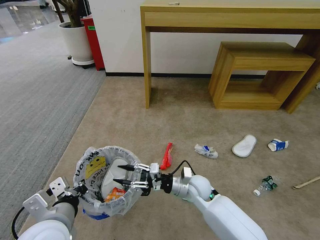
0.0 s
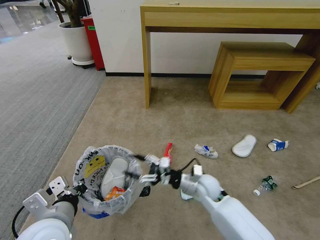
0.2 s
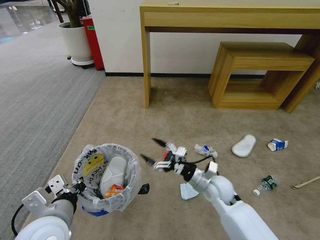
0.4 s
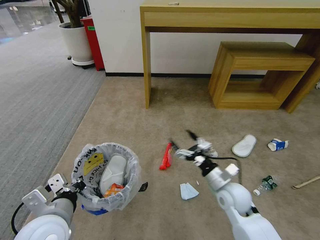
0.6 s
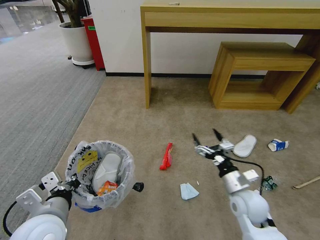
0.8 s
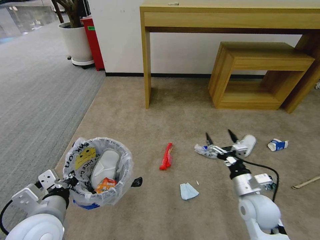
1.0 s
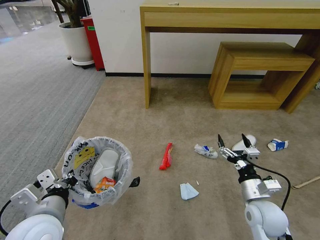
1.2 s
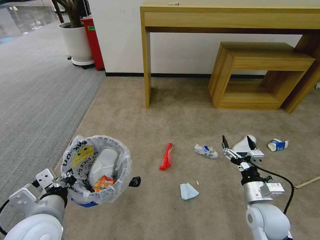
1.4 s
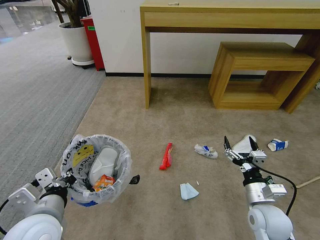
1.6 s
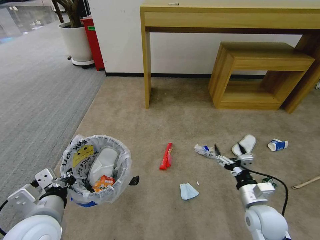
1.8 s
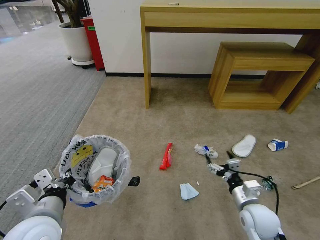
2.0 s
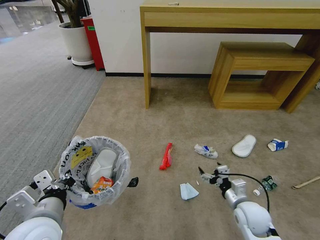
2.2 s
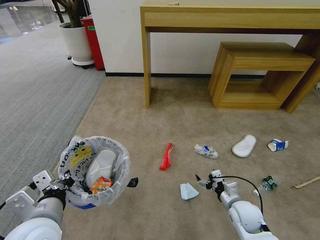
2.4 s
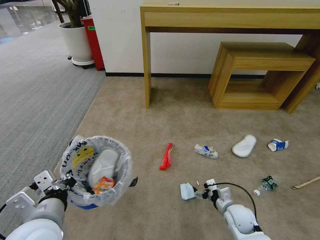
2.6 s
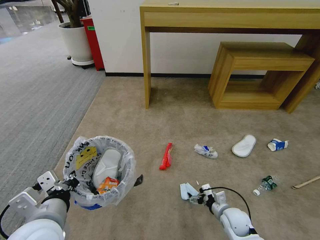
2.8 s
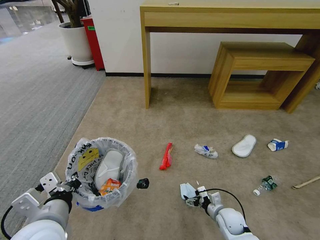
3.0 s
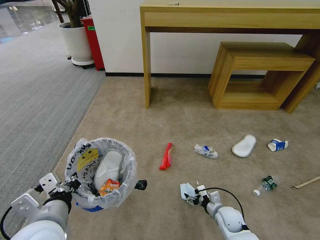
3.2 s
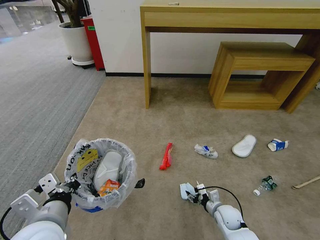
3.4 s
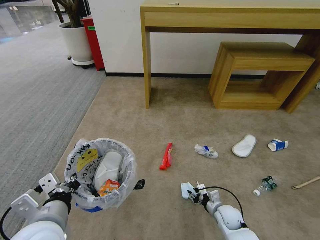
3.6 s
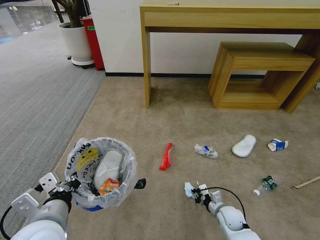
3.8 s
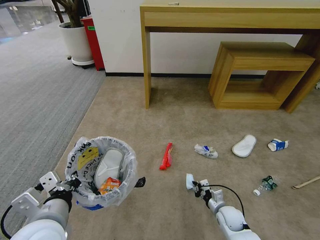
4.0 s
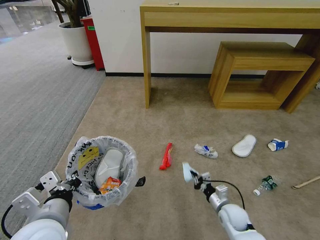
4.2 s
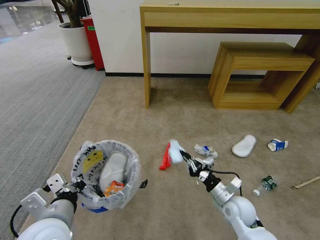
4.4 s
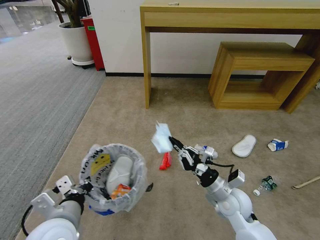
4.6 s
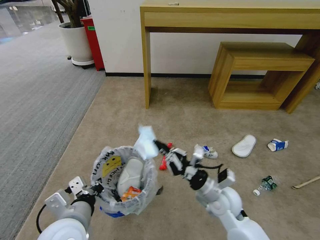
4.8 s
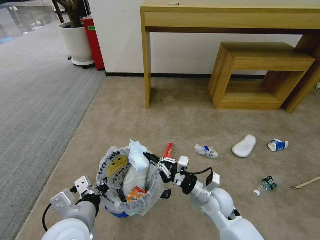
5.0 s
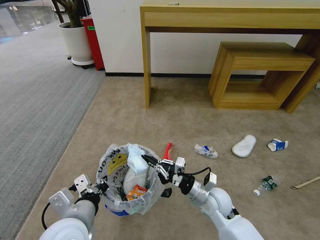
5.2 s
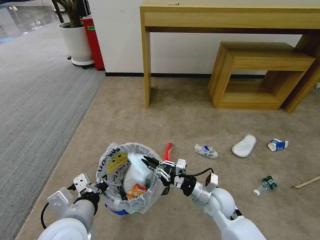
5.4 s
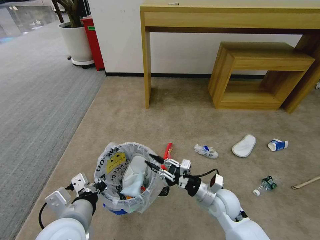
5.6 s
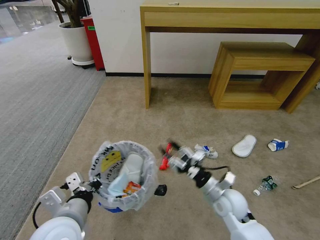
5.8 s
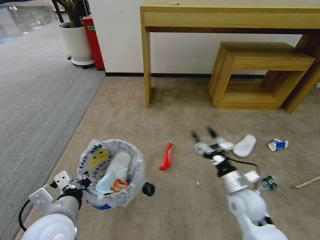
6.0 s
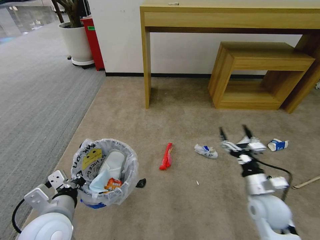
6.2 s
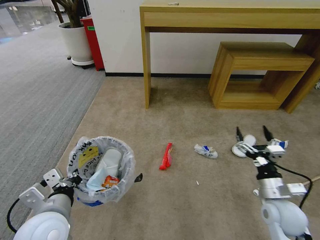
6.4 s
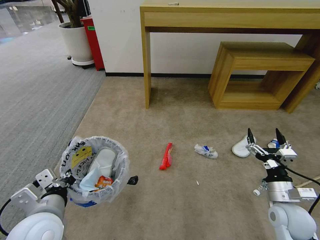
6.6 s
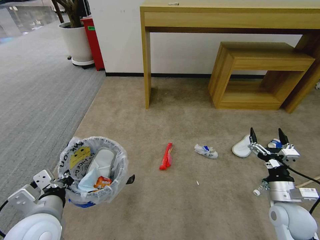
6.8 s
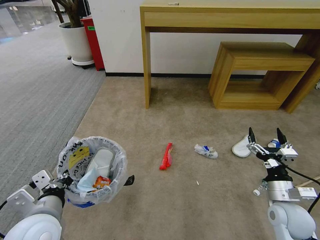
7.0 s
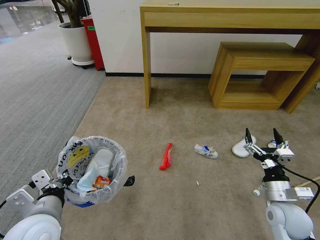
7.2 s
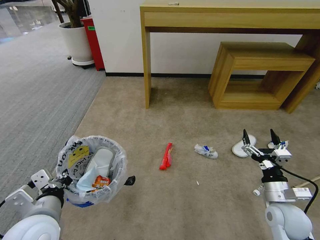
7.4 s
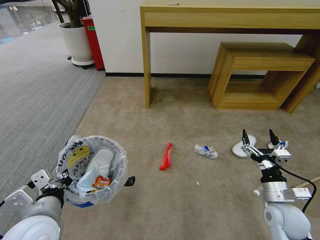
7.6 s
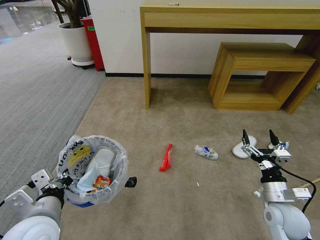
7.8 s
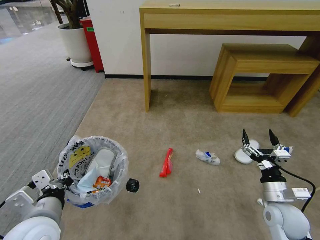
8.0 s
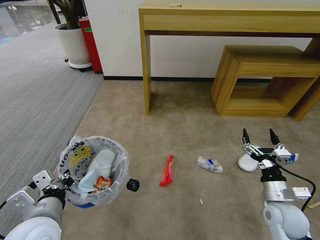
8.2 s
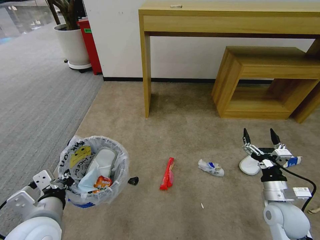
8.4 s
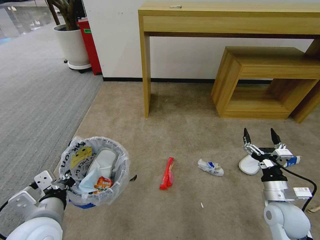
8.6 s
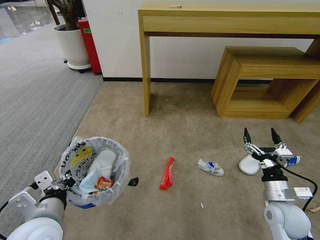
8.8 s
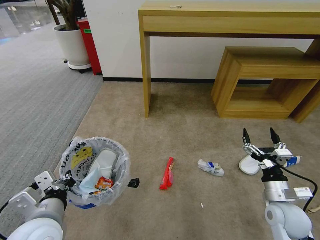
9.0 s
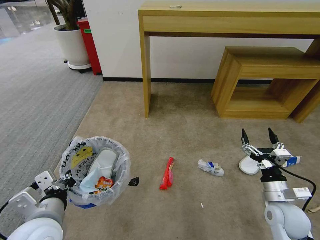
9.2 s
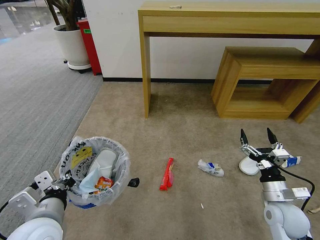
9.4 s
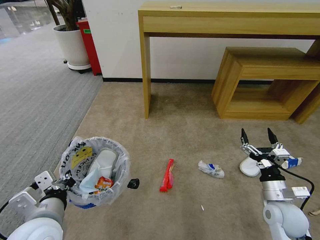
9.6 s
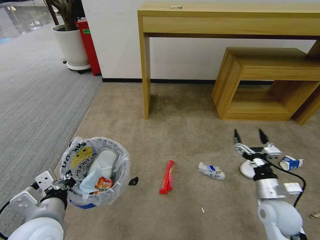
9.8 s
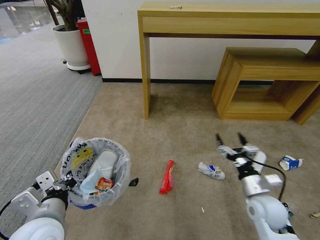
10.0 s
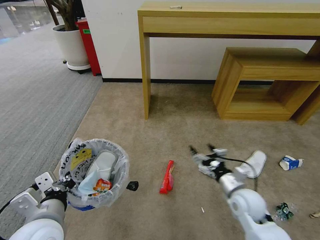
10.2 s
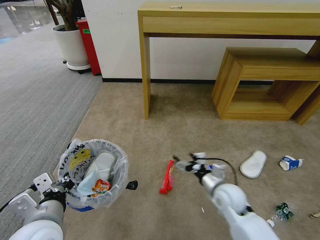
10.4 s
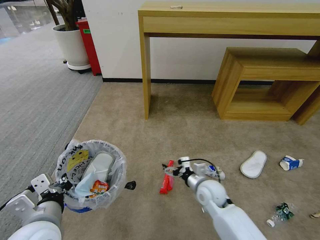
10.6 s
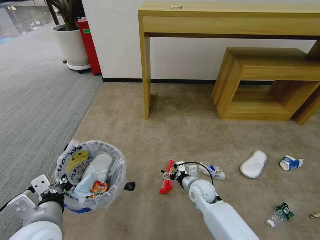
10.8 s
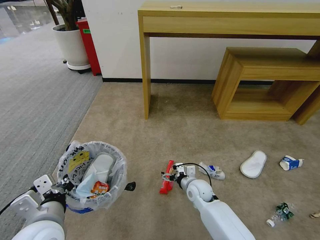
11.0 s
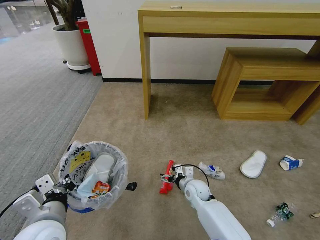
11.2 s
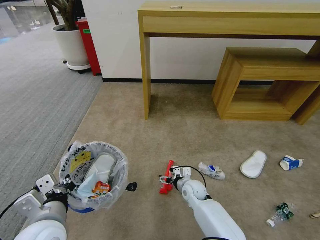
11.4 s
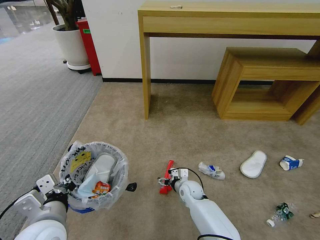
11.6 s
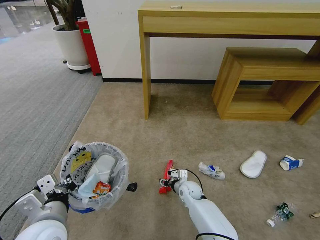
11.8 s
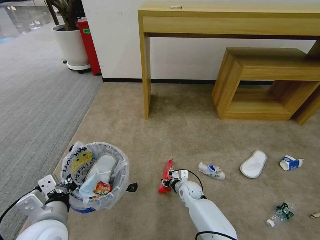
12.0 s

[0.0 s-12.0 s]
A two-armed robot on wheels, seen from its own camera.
Task of the whole recording: Pick up the trash bin and place the garbage on the floor into it.
0.0 to 1.6 s: The right gripper travels to the right and backward by approximately 20 cm, and opens up.
1.6 to 3.0 s: The right gripper shifts some 15 cm downward.
3.0 to 4.4 s: The right gripper goes approximately 10 cm upward, and closes its fingers.
4.4 to 6.0 s: The right gripper is displaced upward by approximately 10 cm, and opens up.
6.0 to 7.6 s: The right gripper shifts approximately 10 cm to the right.
9.0 to 10.4 s: The right gripper moves to the left and forward, about 15 cm.
10.4 to 12.0 s: The right gripper is displaced downward, to the left and forward by some 20 cm, and closes.

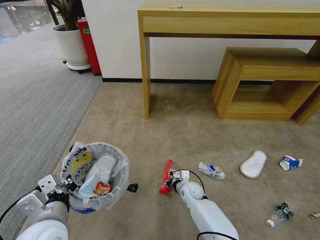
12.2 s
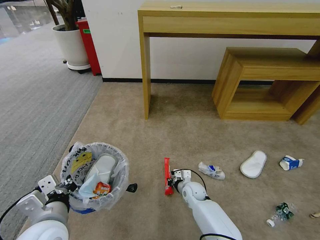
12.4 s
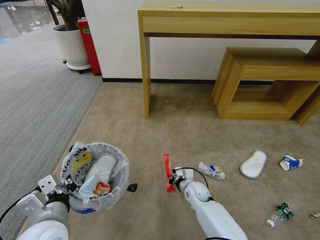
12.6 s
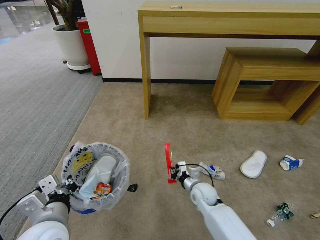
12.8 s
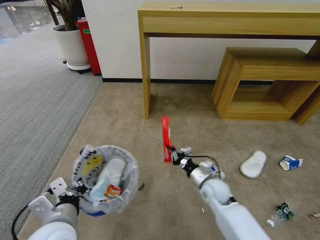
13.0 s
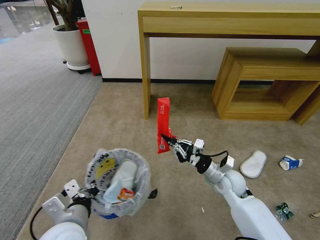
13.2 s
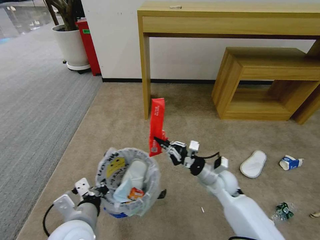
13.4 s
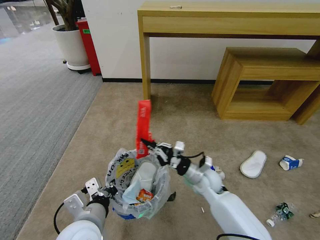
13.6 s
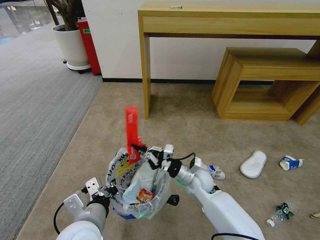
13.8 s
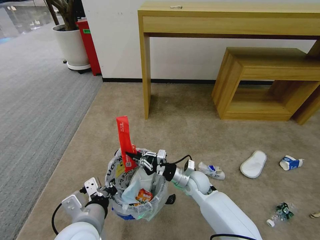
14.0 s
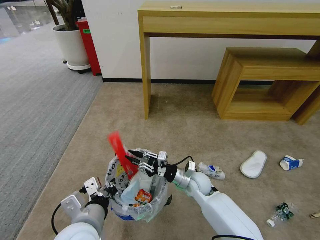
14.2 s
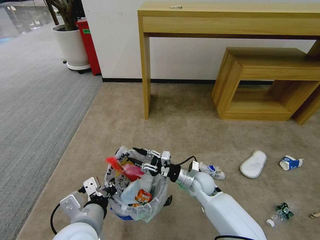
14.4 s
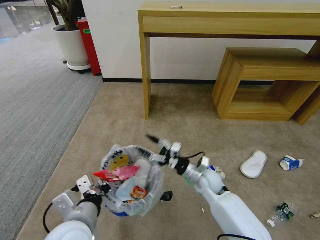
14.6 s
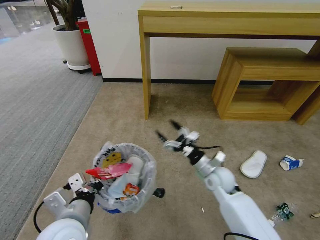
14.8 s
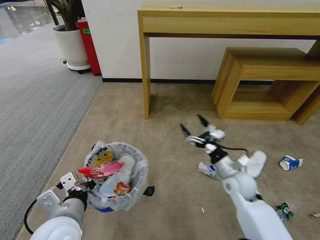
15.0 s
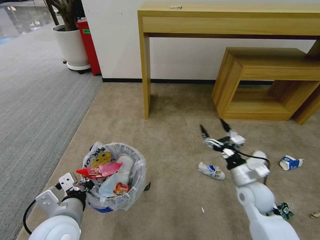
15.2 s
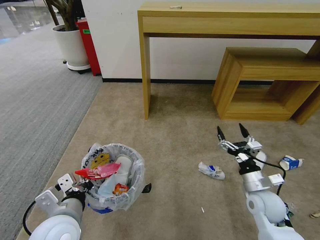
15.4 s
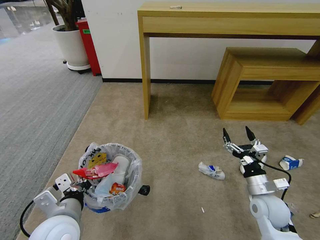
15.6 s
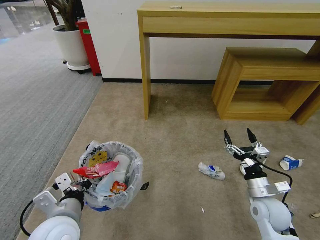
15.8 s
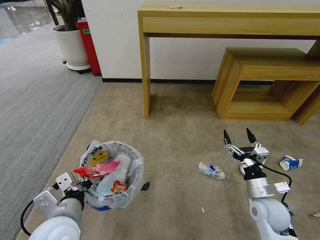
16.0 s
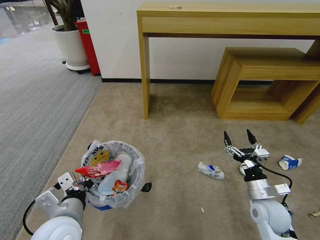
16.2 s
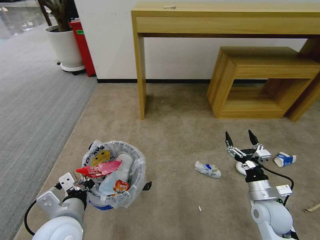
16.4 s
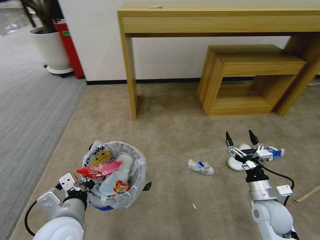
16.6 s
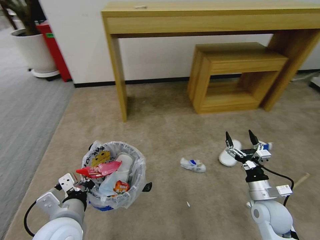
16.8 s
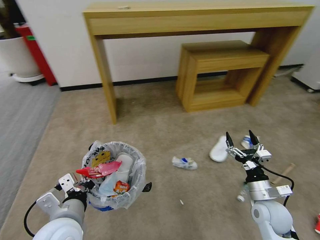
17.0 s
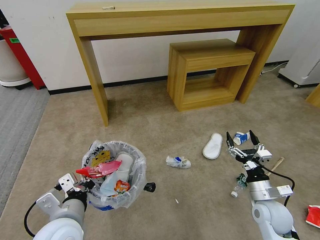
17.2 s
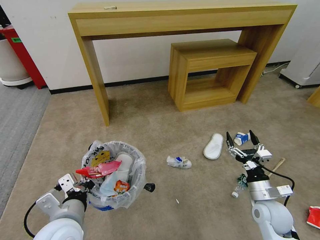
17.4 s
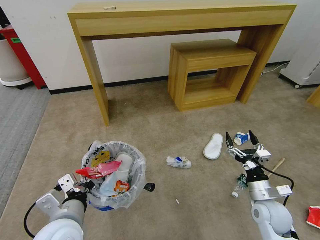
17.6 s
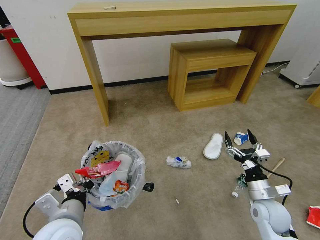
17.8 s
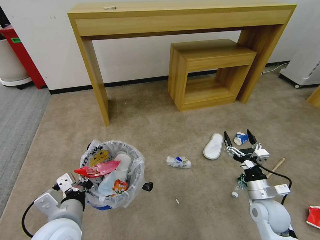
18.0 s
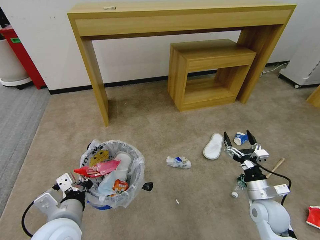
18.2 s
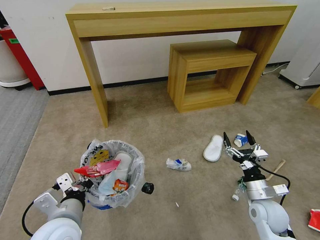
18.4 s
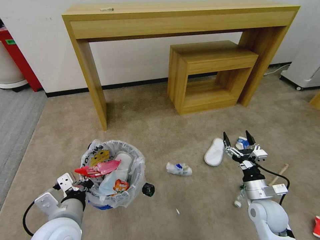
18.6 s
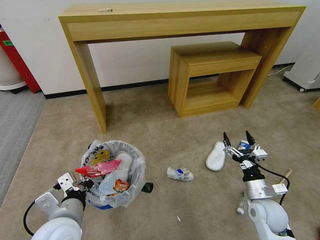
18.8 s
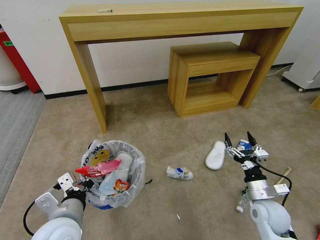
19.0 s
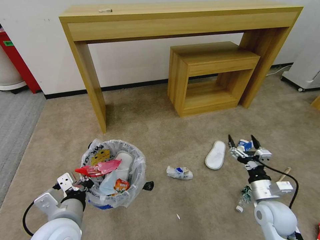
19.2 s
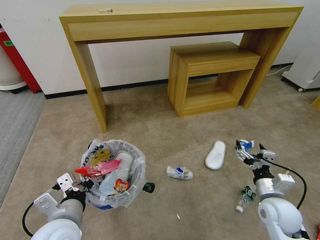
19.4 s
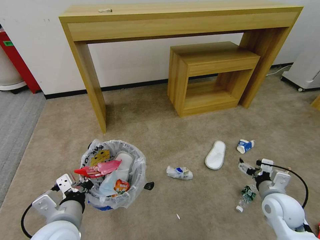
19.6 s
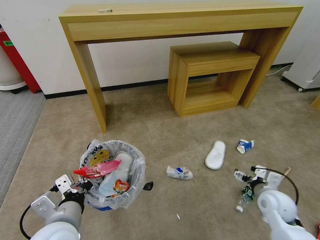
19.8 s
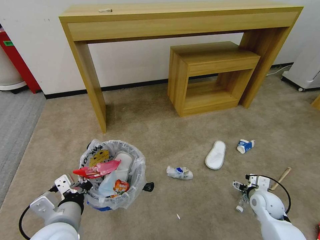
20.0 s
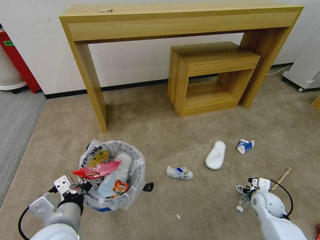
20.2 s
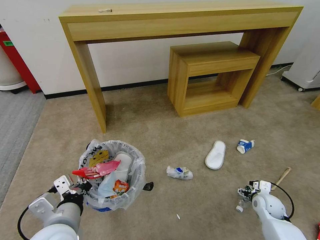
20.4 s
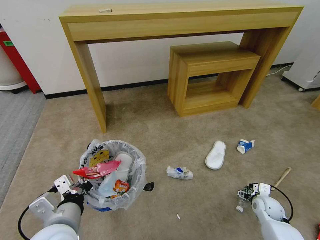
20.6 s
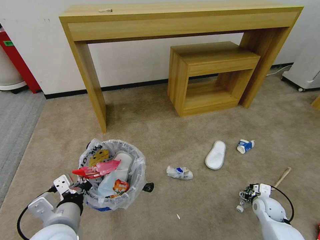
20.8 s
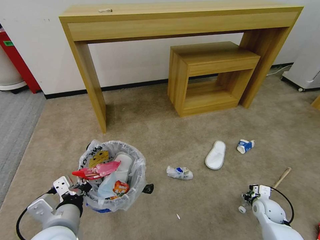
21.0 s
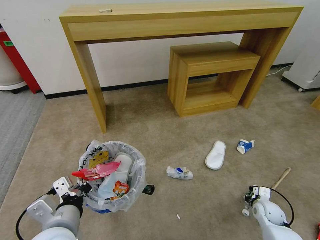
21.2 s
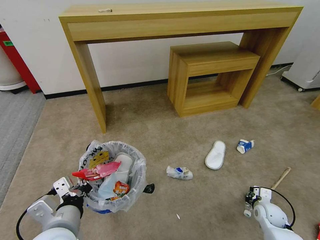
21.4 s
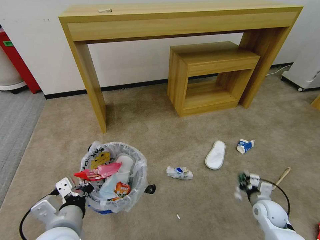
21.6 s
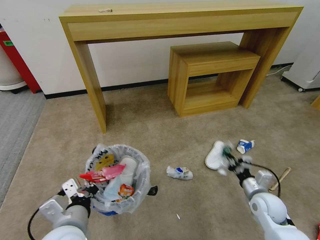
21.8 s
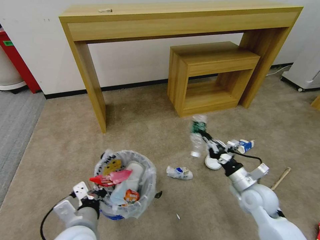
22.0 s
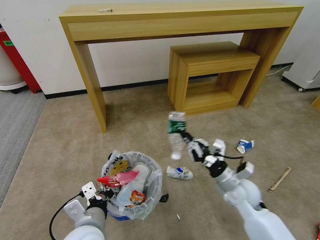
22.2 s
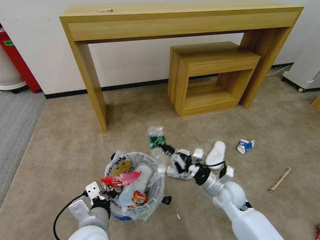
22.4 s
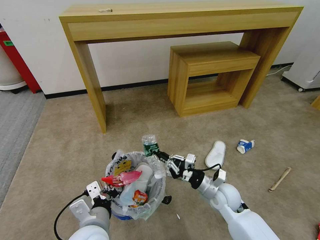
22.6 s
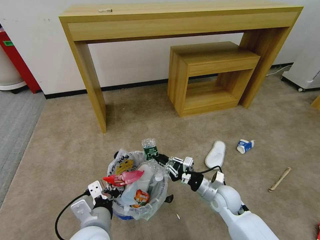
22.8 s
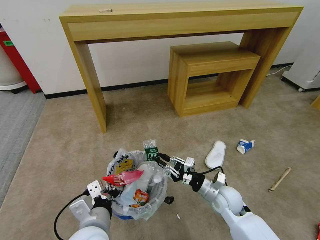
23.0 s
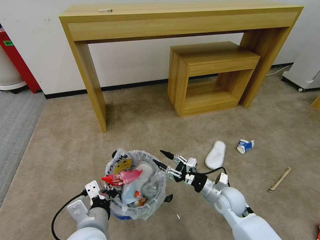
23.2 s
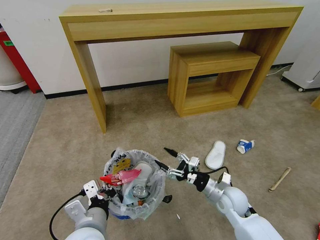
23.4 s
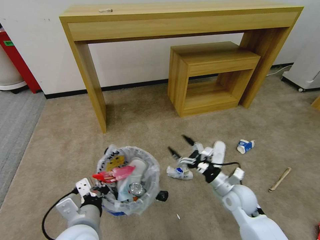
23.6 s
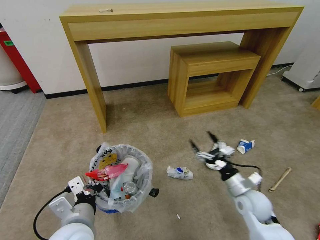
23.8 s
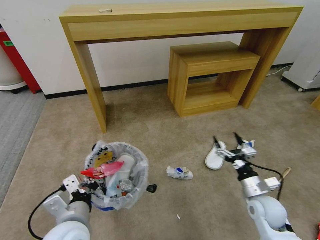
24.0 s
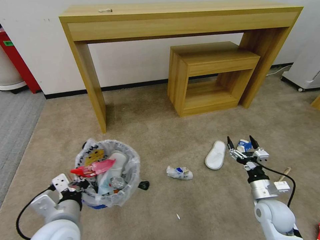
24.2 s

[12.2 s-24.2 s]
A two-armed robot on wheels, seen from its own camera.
Task of the whole recording: Pick up the trash bin and place the garbage on the floor into it.
12.2 to 13.8 s: The right gripper shifts some 15 cm upward. The left gripper heads to the right, covering roughly 5 cm.
13.8 to 15.2 s: The right gripper travels to the right and backward by roughly 15 cm, and opens up, while the left gripper moves approximately 5 cm.
15.2 to 16.6 s: The right gripper travels backward by roughly 5 cm.
19.8 to 21.2 s: The right gripper moves downward, some 15 cm, and closes its fingers.
21.2 to 22.6 s: The right gripper travels to the left and upward by approximately 25 cm, and closes its fingers. The left gripper goes about 5 cm to the right.
22.6 to 24.2 s: The right gripper shifts some 15 cm to the right and backward, and opens. The left gripper is displaced to the left by approximately 5 cm.
